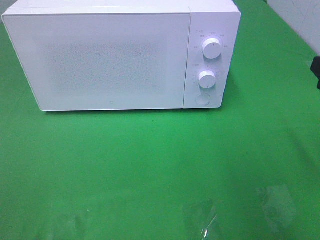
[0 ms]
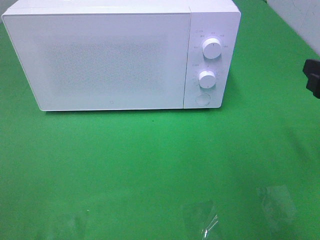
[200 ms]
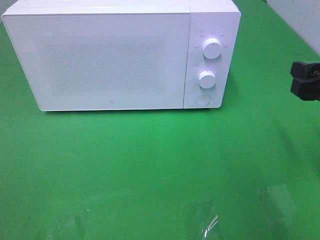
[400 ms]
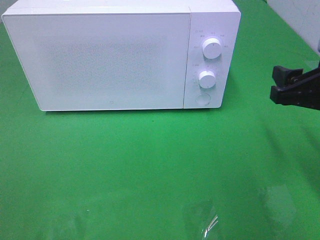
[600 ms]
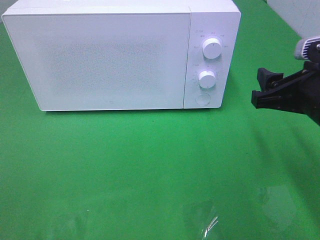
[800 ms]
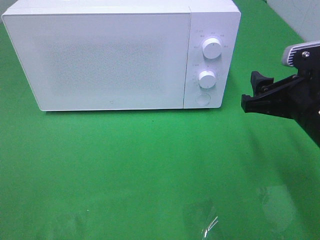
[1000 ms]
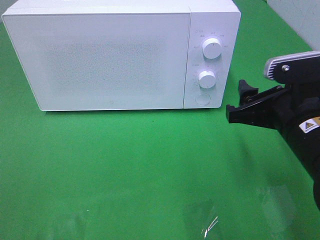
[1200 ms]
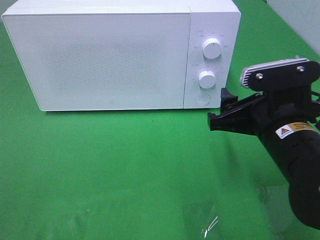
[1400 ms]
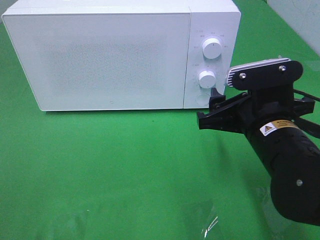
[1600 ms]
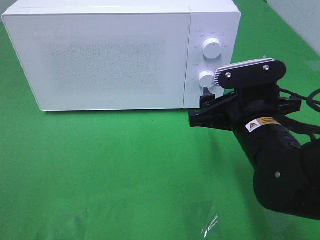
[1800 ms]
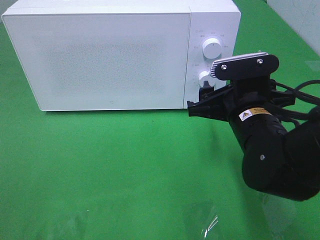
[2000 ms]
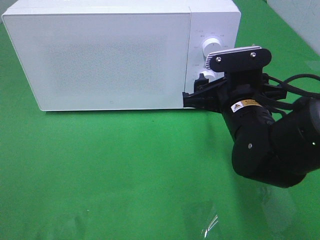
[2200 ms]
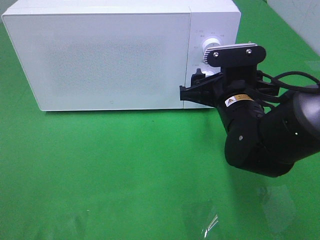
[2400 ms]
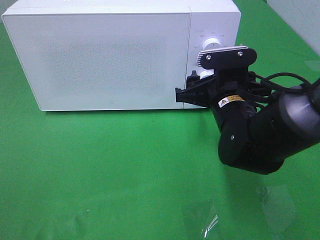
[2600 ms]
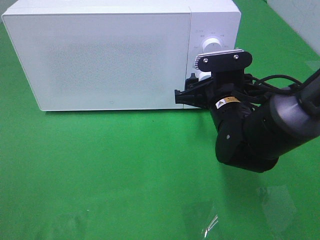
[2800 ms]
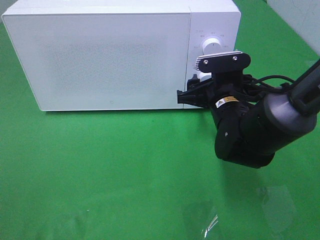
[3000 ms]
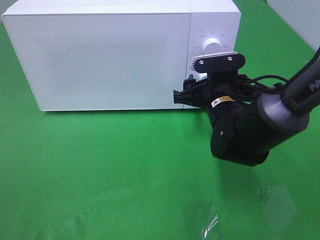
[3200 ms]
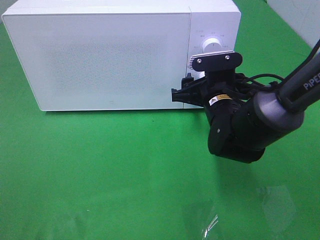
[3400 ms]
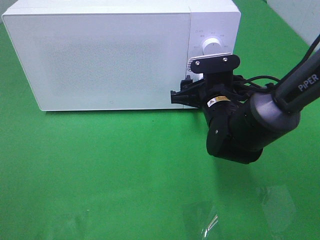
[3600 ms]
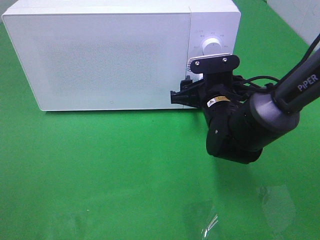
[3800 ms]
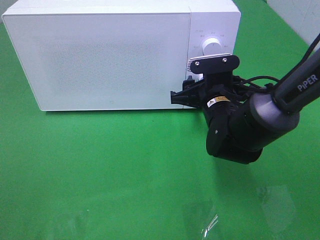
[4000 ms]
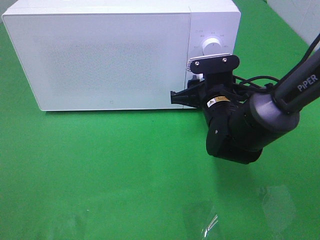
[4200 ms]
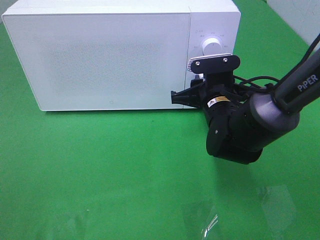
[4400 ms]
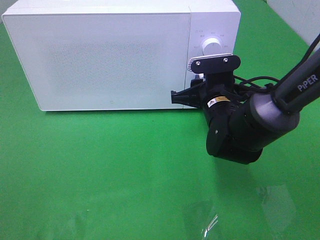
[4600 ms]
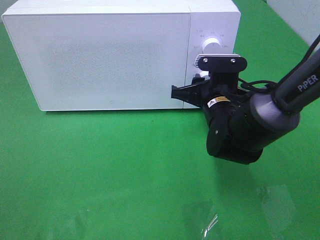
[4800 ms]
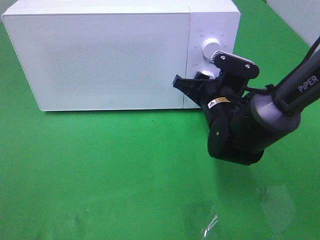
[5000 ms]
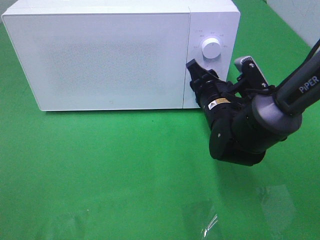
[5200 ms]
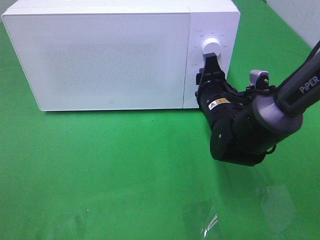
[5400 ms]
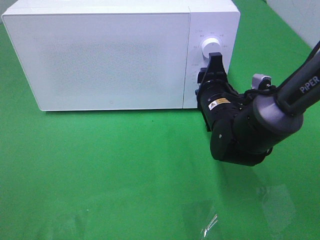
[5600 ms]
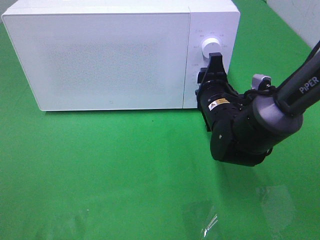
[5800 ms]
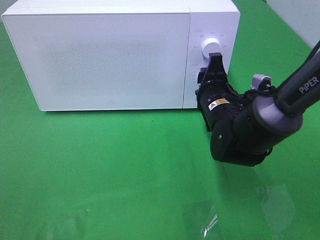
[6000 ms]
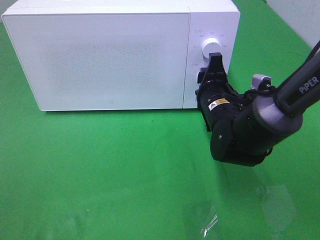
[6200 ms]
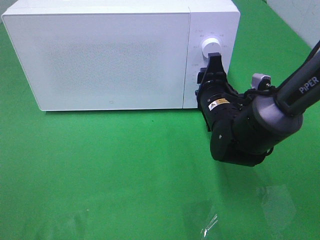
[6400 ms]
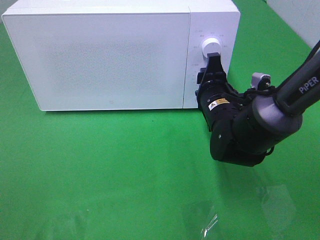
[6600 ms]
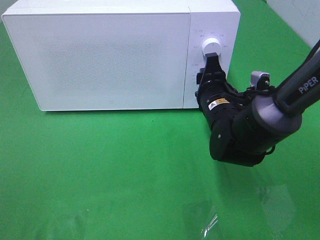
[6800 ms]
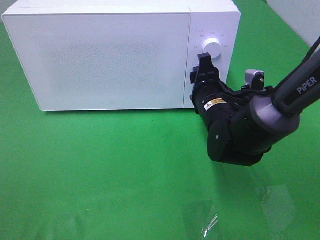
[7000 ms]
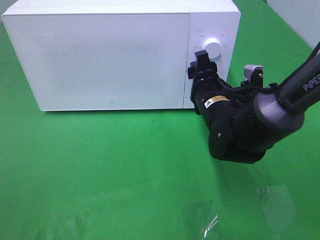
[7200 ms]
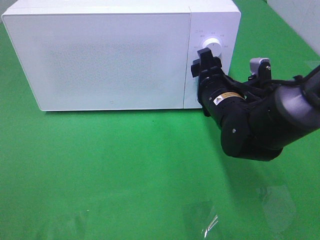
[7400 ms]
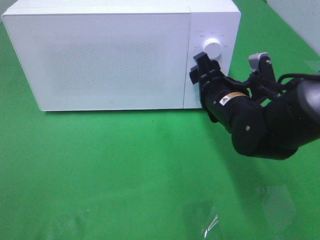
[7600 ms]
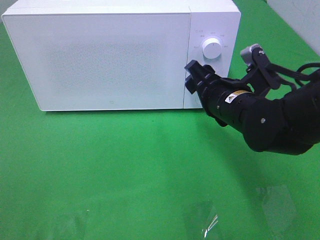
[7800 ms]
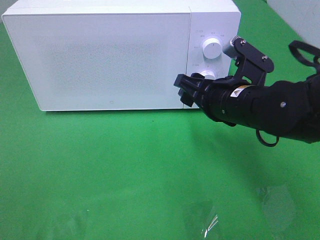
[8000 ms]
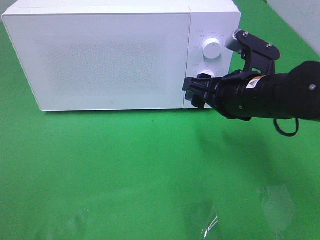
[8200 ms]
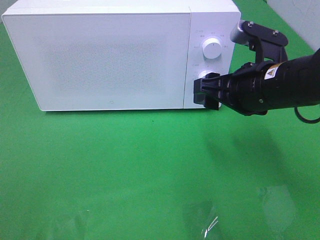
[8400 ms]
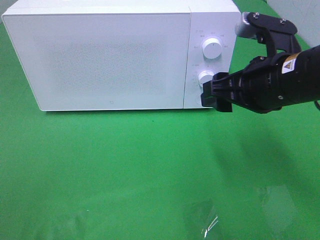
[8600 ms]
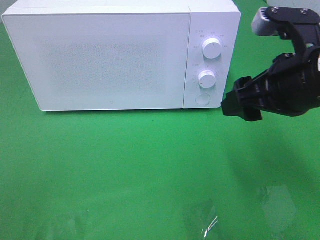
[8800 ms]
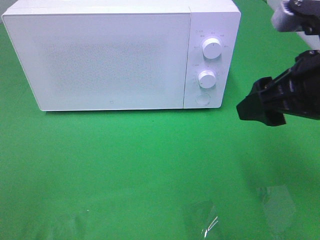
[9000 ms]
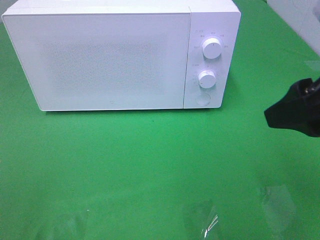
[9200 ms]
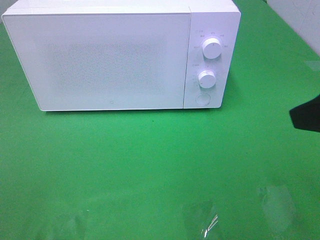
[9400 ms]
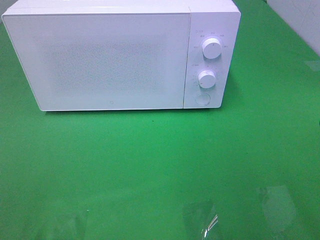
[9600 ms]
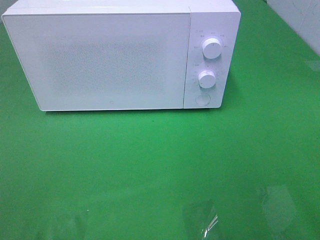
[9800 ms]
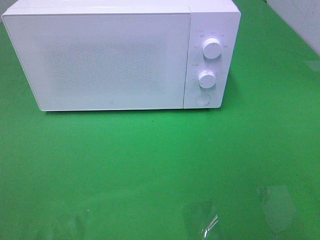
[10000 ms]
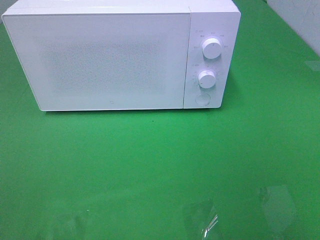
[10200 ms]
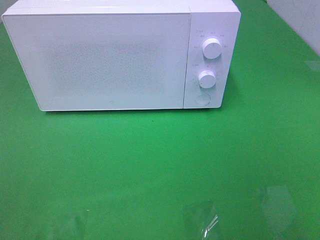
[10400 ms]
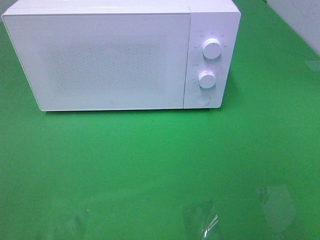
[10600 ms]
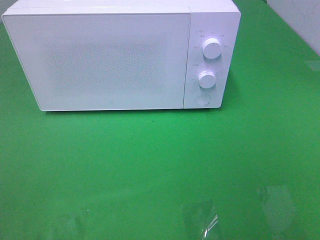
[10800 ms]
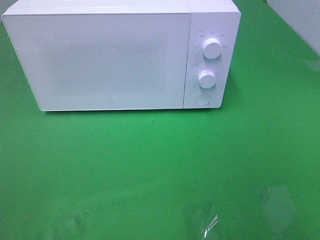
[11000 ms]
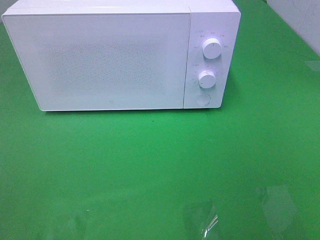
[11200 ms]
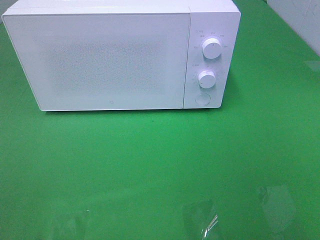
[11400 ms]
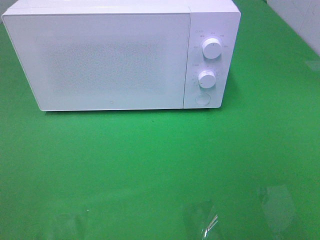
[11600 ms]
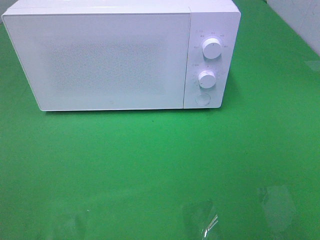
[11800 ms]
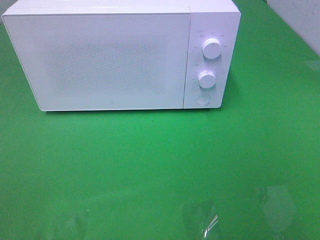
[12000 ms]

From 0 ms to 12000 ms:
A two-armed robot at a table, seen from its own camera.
Task of the whole recording: Heat the burger.
Step, from 0 ms to 7400 ms: Right hand: twist timer button.
From 0 ms to 1600 ms: The right gripper goes roughly 15 cm to the left and downward.
From 1600 ms to 3000 ms: The right gripper travels forward by roughly 10 cm.
From 3000 ms to 4400 ms: The right gripper closes its fingers.
From 7600 ms to 9000 ms: The right gripper moves upward, backward and to the right, some 20 cm.
From 9000 ms to 10400 ms: The right gripper moves backward and to the right, roughly 20 cm.

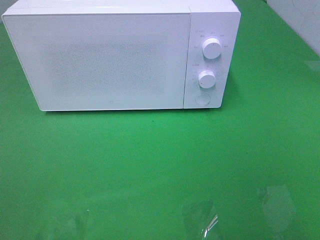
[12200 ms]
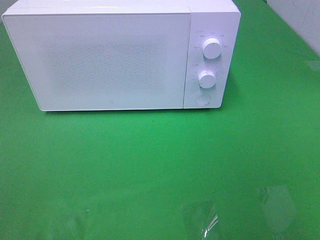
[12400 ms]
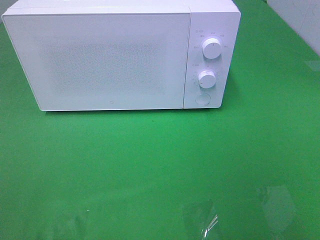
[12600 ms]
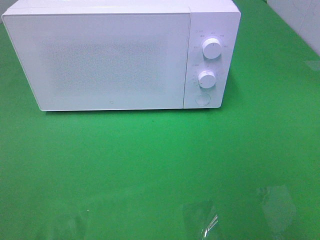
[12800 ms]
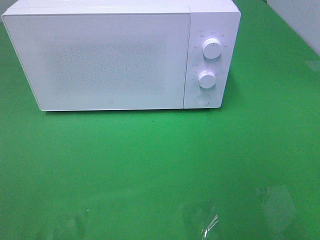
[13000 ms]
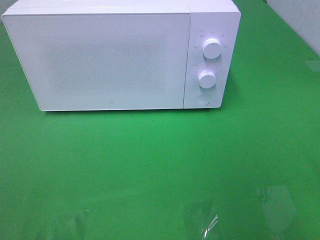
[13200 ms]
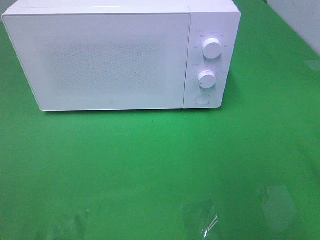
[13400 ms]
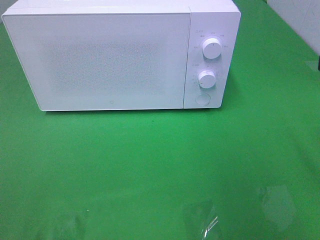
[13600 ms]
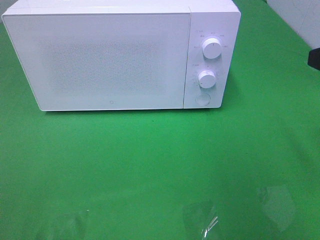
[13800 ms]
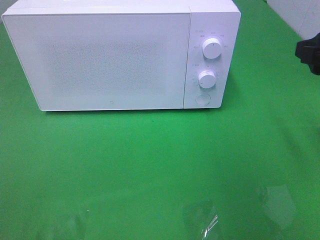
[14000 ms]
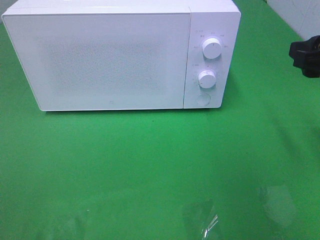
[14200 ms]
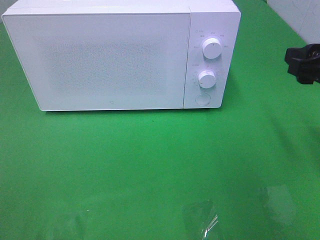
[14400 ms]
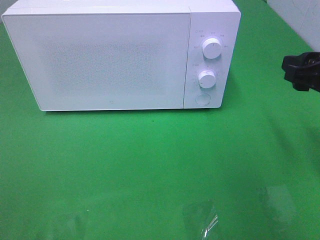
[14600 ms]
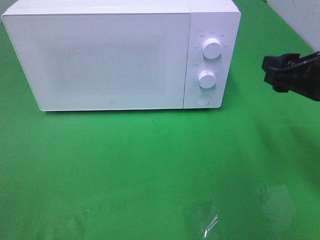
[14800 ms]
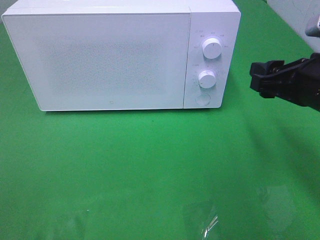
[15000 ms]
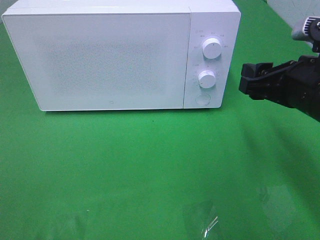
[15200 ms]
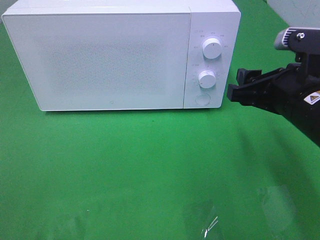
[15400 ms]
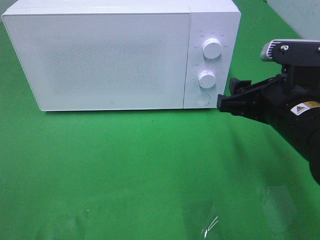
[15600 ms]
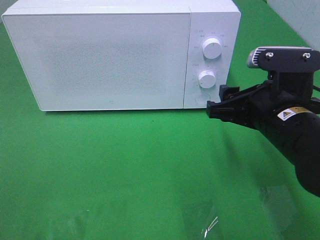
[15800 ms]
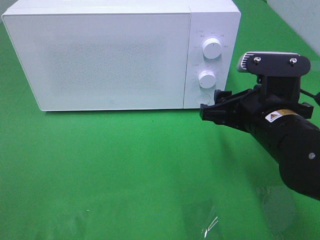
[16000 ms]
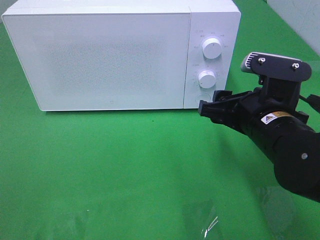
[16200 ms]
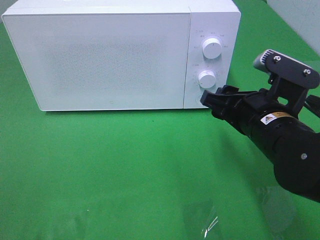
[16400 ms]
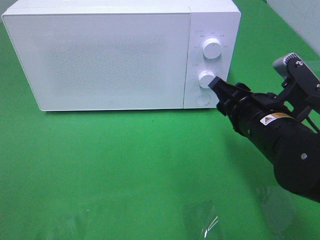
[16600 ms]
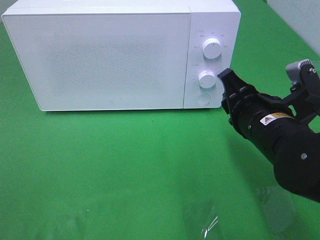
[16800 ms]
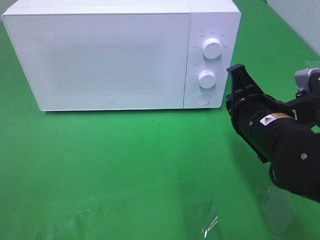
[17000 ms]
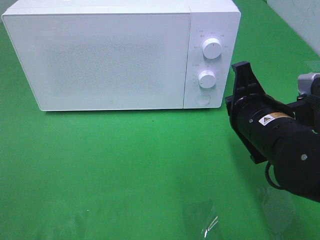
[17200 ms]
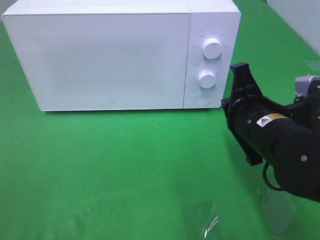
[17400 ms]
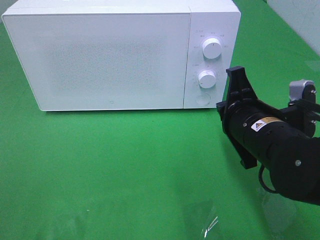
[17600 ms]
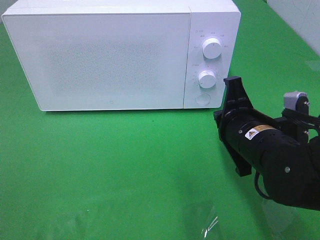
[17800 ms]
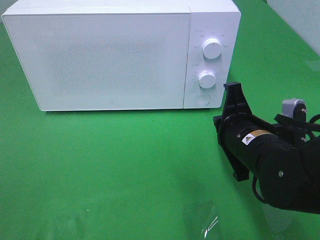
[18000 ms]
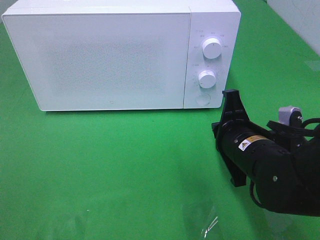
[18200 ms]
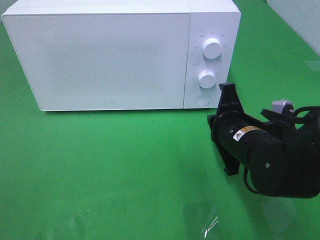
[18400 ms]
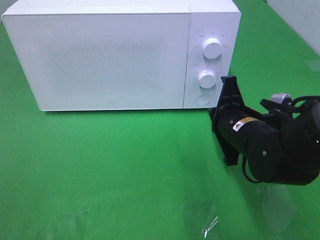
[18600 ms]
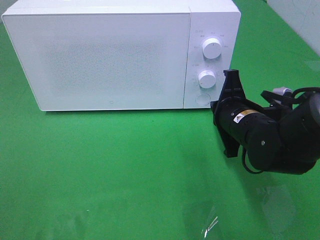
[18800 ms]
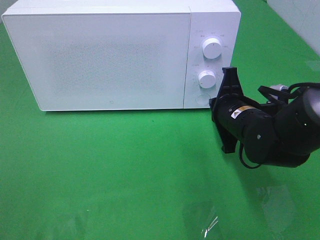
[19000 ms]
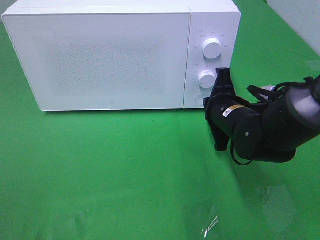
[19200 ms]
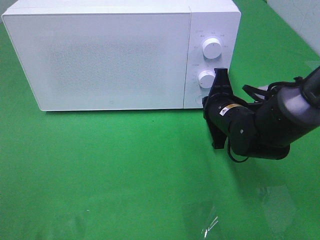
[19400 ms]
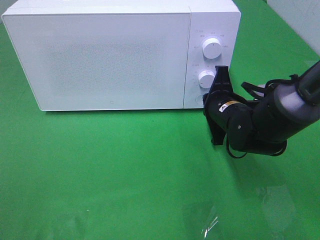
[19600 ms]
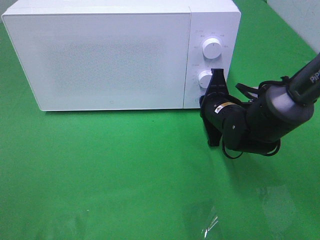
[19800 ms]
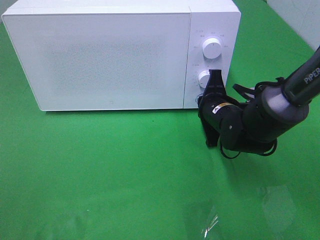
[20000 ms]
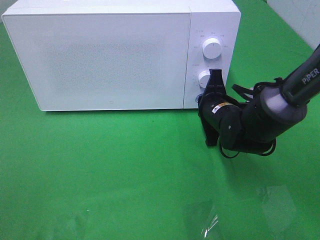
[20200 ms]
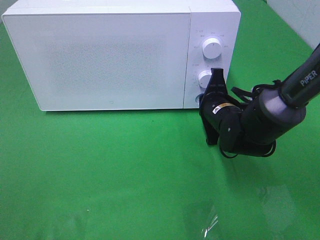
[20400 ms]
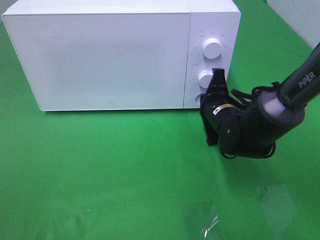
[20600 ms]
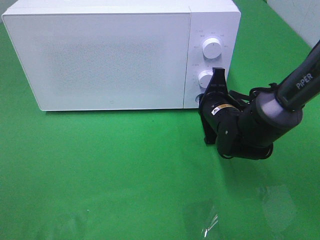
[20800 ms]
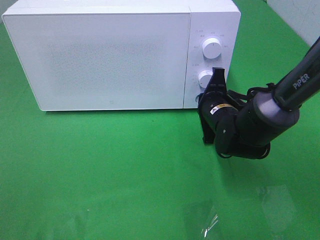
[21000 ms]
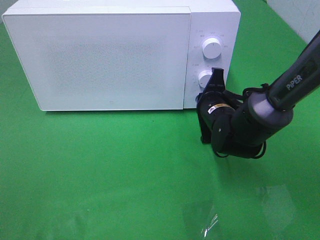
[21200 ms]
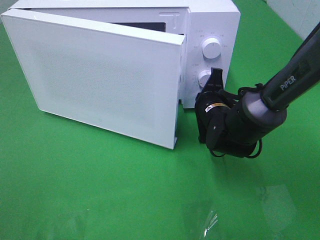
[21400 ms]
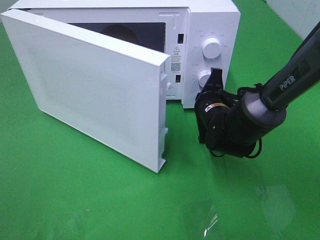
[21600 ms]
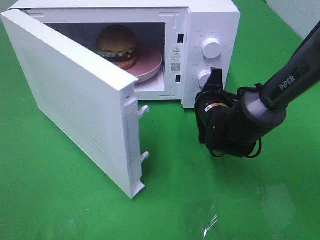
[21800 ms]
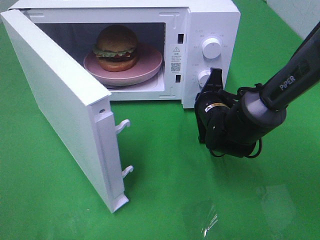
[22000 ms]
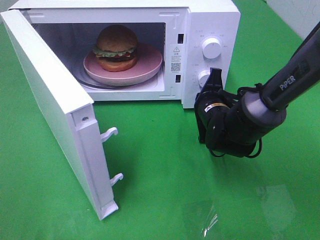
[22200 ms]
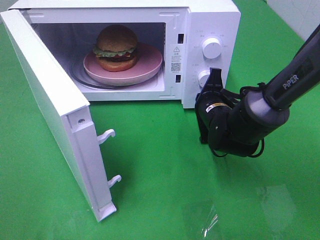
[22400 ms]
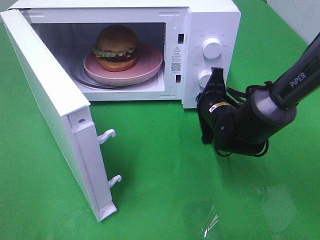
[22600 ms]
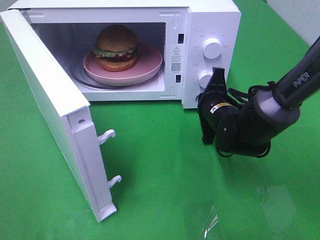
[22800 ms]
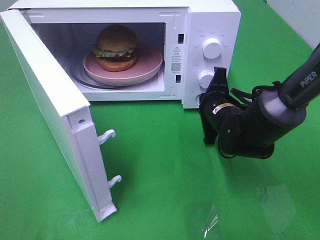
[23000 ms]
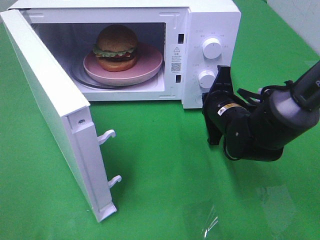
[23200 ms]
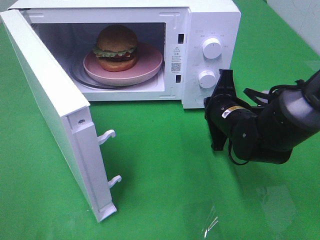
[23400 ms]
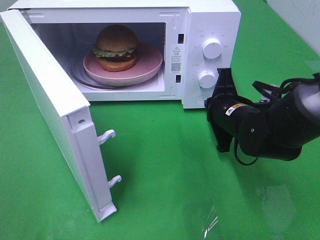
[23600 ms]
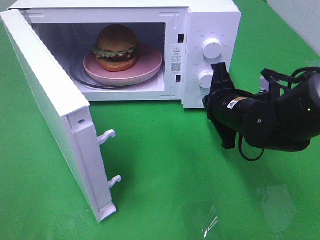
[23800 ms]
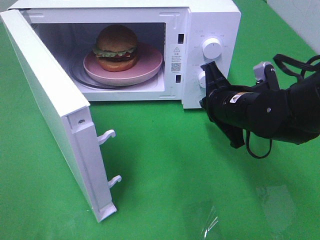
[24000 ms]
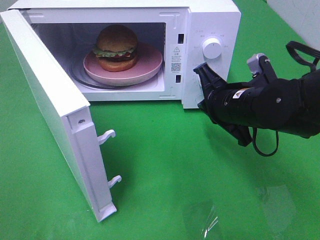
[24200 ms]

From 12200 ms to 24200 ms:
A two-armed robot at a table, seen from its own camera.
Task of the whole recording: Heat the burger.
Step, from 12200 ms to 23600 ms: Right hand: press the switch.
From 13800 ms to 15200 ms: The right gripper is displaced downward and to the left by approximately 10 cm.
From 15200 ms to 16600 ms: The right gripper moves to the left, roughly 5 cm.
From 16600 ms to 18200 ms: The right gripper closes.
From 18200 ms to 19800 ms: The right gripper moves forward, some 10 cm.
From 19800 ms to 21200 ms: The grippers make only small movements.
From 22600 ms to 24200 ms: The right gripper heads upward and backward, covering approximately 10 cm.
